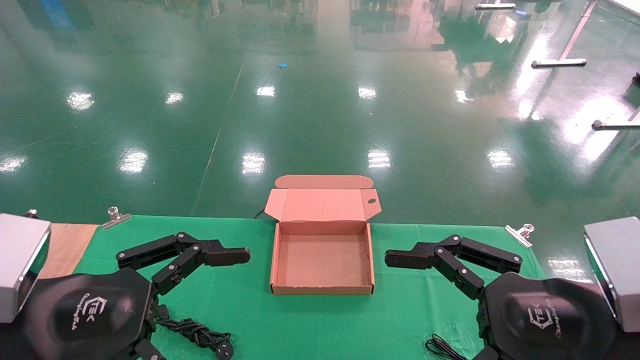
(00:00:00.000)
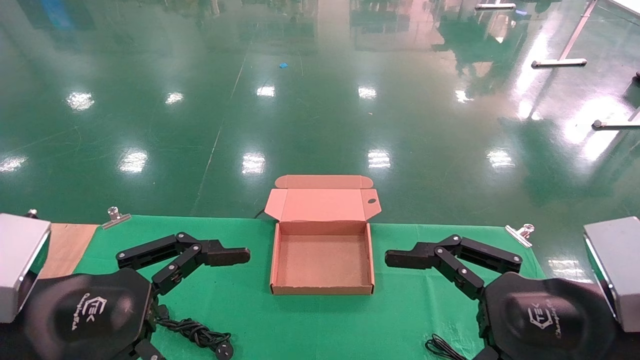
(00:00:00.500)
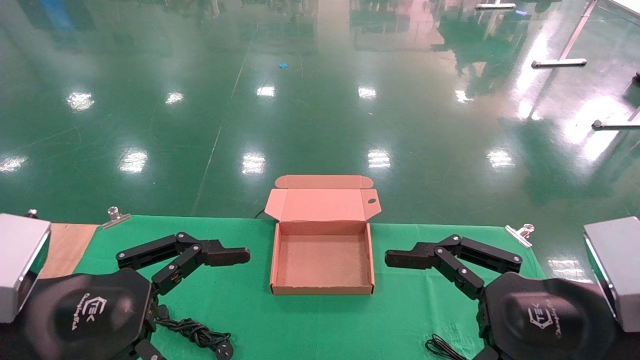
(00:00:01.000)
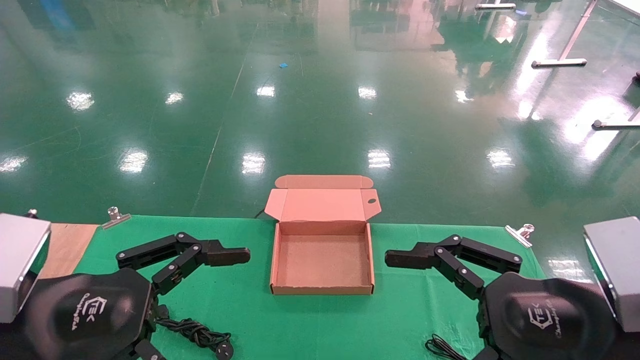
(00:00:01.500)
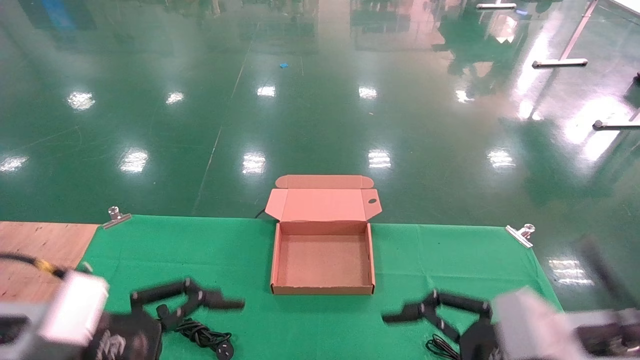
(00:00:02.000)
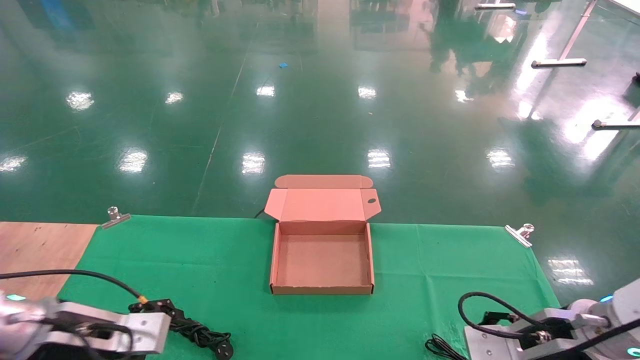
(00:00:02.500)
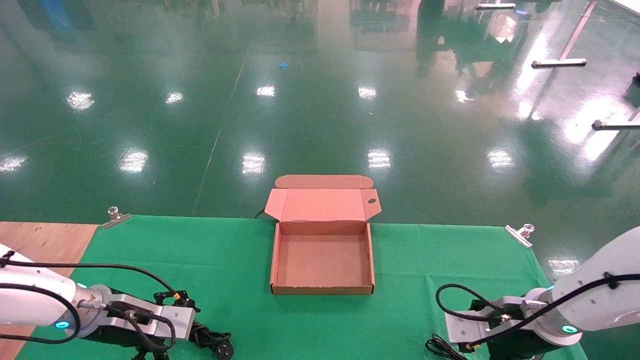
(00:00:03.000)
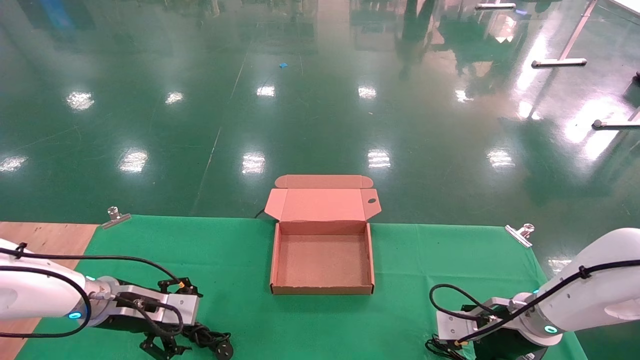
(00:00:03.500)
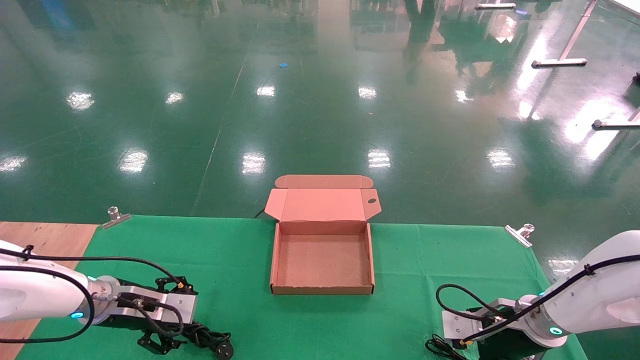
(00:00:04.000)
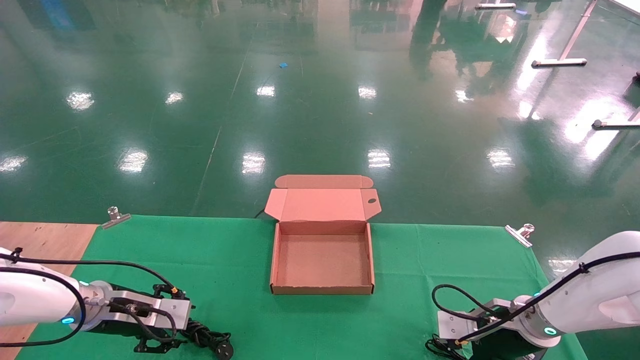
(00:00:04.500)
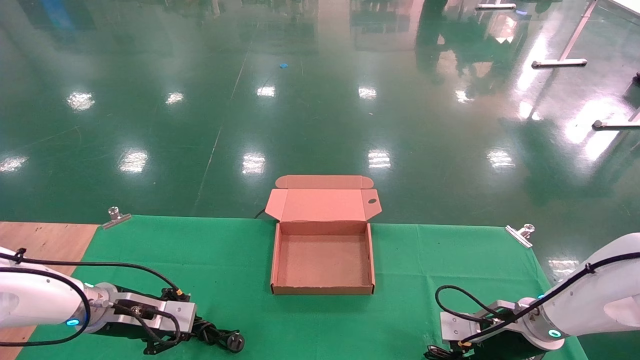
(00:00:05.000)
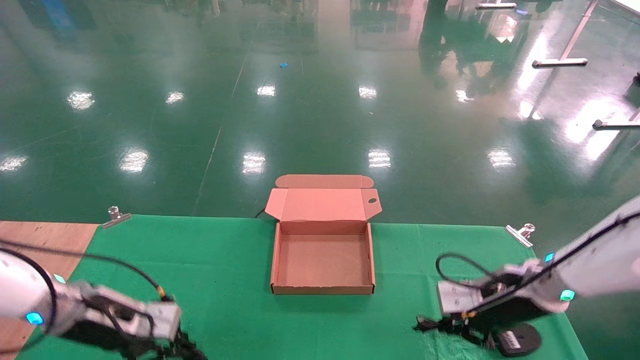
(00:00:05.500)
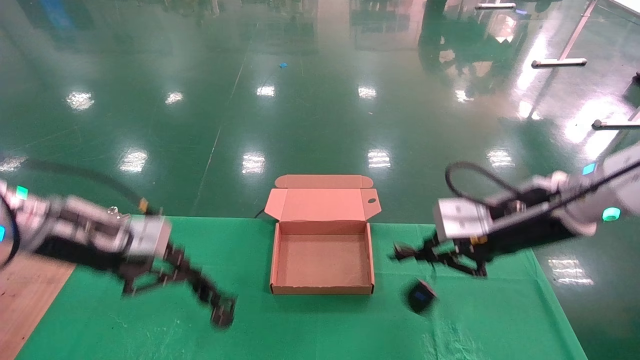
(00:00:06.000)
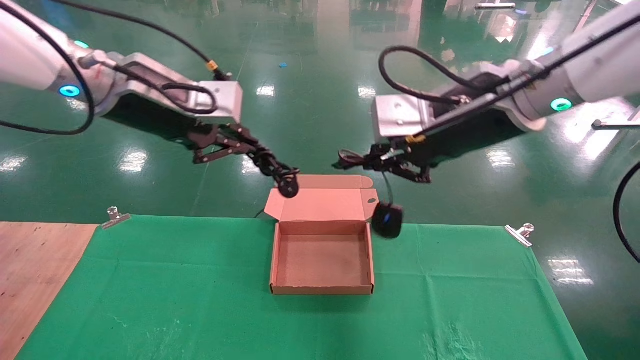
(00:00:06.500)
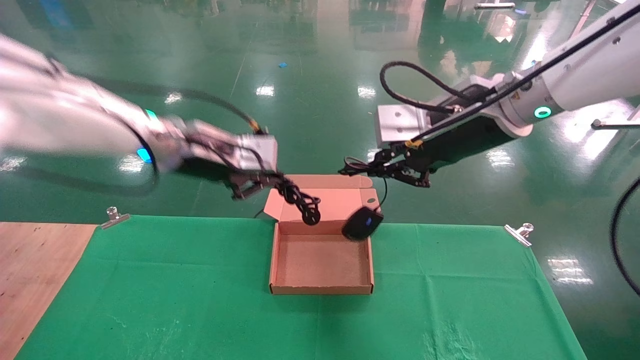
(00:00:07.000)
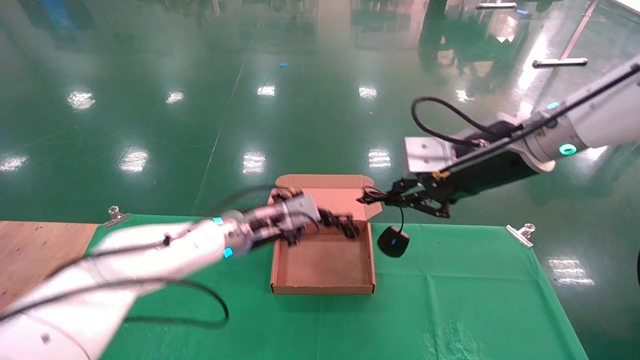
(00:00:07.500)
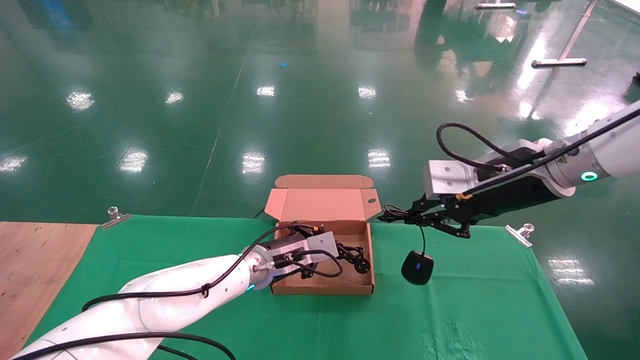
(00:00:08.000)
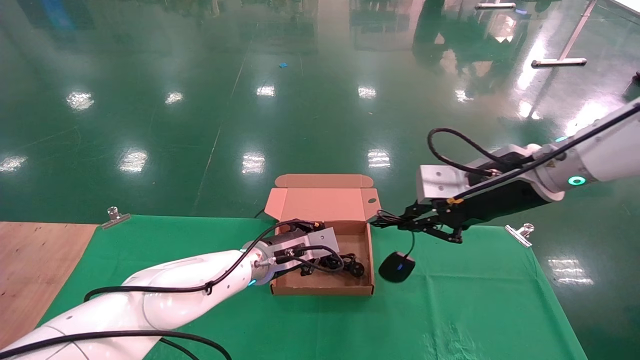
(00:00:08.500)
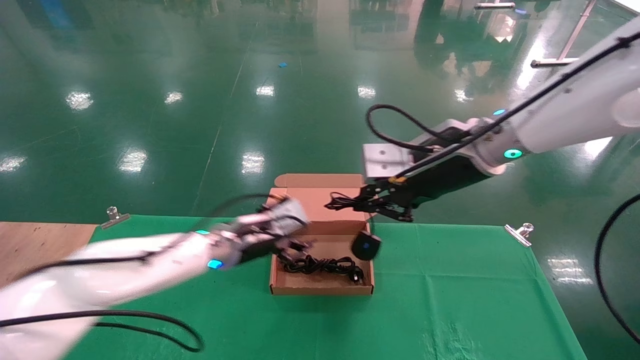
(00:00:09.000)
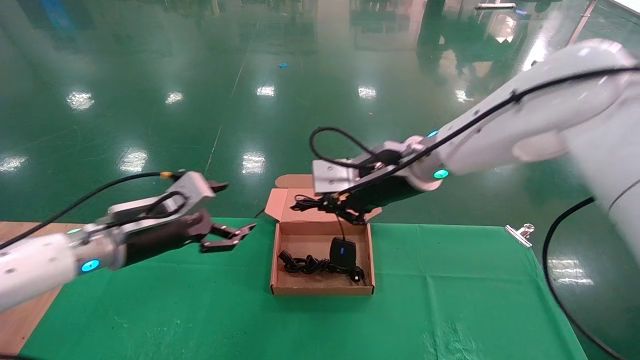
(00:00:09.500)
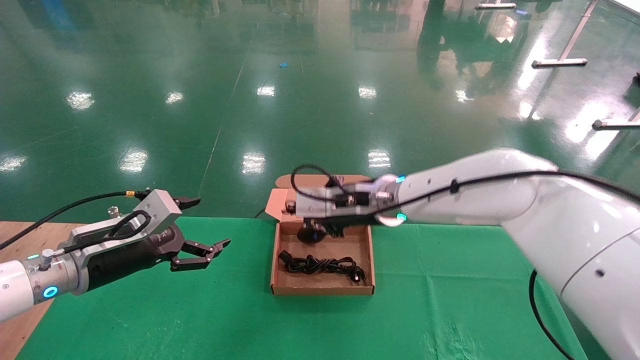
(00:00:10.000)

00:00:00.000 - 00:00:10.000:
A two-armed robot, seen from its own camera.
Step, 00:00:03.000 - 00:00:05.500: Grab and lift both the mouse and power cord from the accessory packaging area at the same time.
00:00:00.000 - 00:00:02.000: The right gripper shifts by about 5 cm. The left gripper ends up roughly 5 cm from where it was.
00:00:02.000 - 00:00:04.000: Both grippers travel together forward and downward, roughly 20 cm.
00:00:04.000 - 00:00:06.000: Both grippers travel together upward, some 20 cm. The left gripper closes up; the right gripper closes up.
00:00:06.000 - 00:00:08.000: The right gripper travels upward and back again, some 10 cm each way; the left gripper moves to the right, downward and forward, some 30 cm.
00:00:08.000 - 00:00:10.000: The left gripper is displaced to the left and backward by some 25 cm, and opens up, while the right gripper goes about 20 cm to the left, forward and downward.

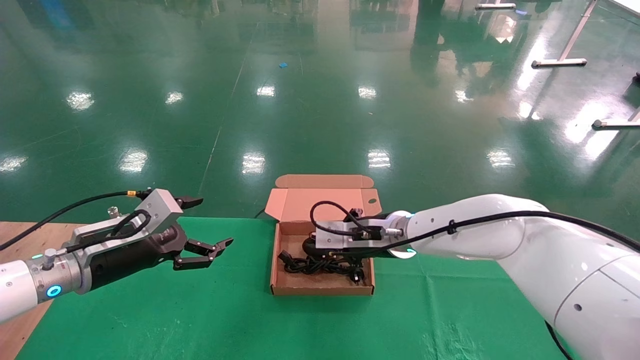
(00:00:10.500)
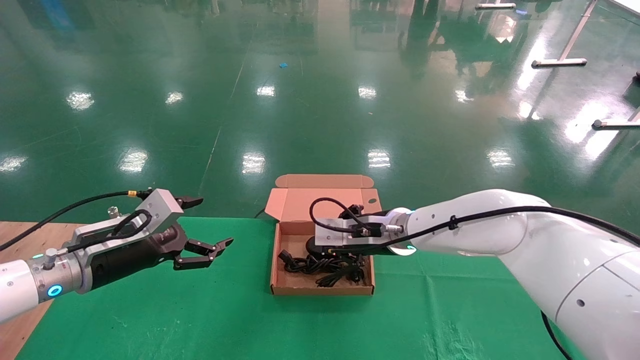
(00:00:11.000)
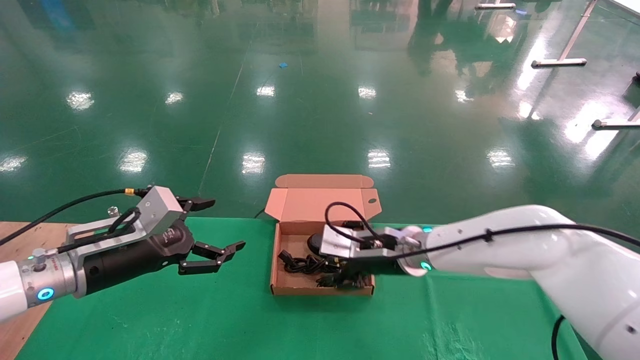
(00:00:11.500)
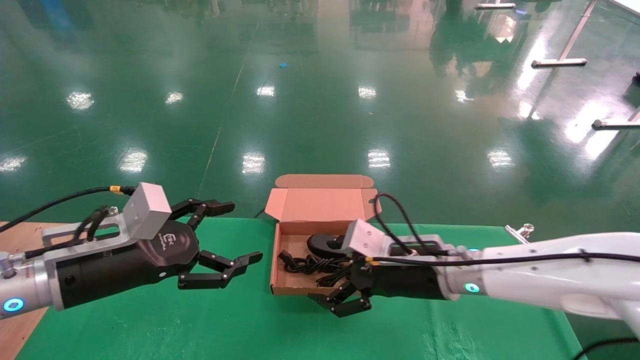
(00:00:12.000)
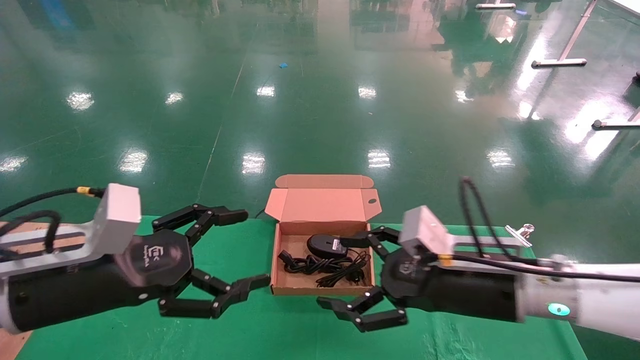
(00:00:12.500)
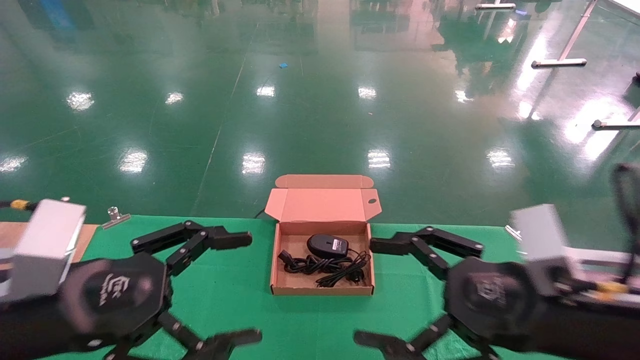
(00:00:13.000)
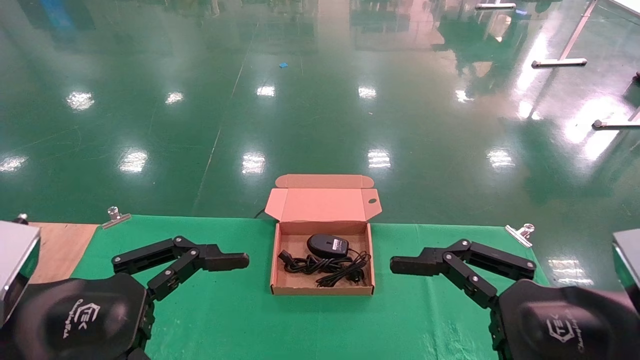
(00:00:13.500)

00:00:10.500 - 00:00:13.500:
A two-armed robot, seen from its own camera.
00:00:10.500 - 00:00:12.000: The left gripper heads backward, covering about 5 cm, while the right gripper shifts approximately 10 cm backward and to the right, and opens up.
00:00:12.000 - 00:00:13.500: The left gripper shifts approximately 15 cm backward, while the right gripper goes approximately 25 cm backward and to the right.

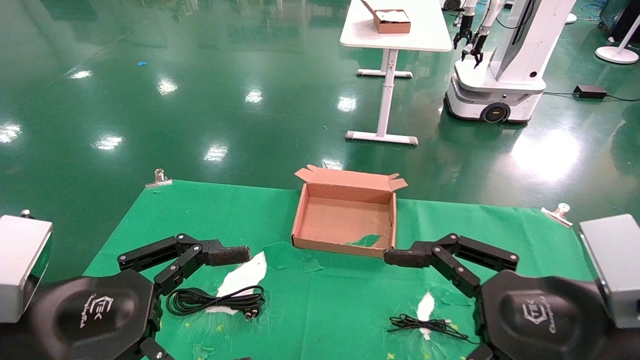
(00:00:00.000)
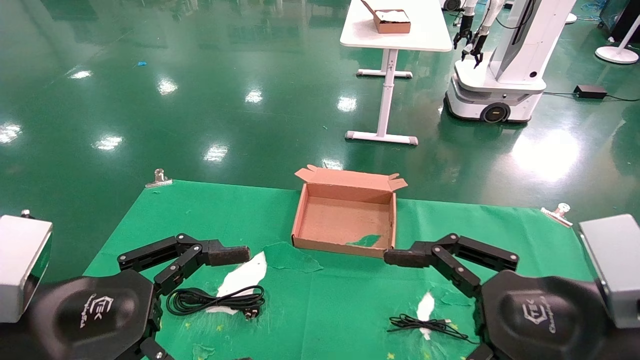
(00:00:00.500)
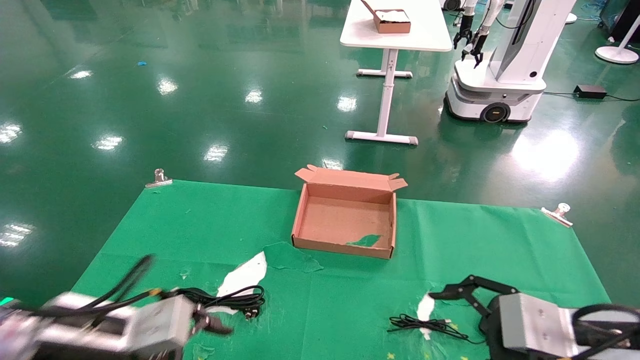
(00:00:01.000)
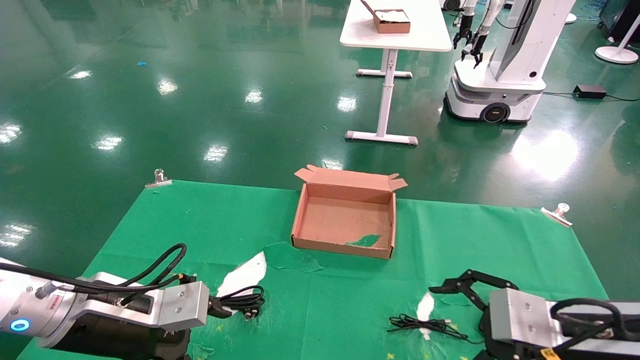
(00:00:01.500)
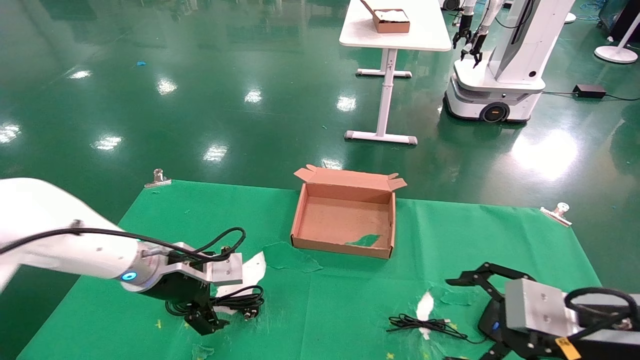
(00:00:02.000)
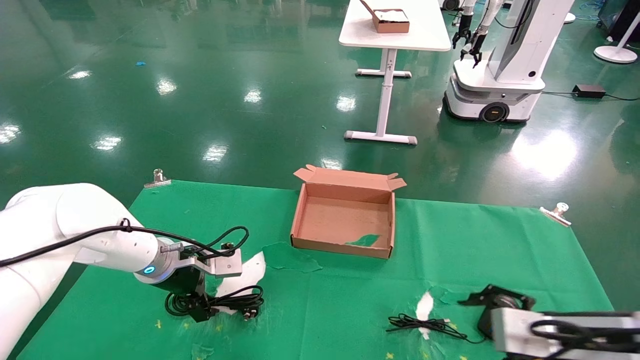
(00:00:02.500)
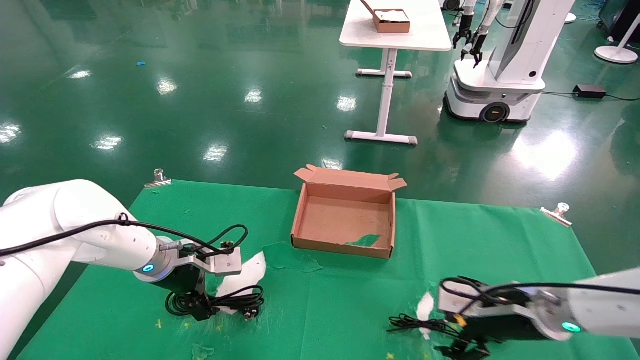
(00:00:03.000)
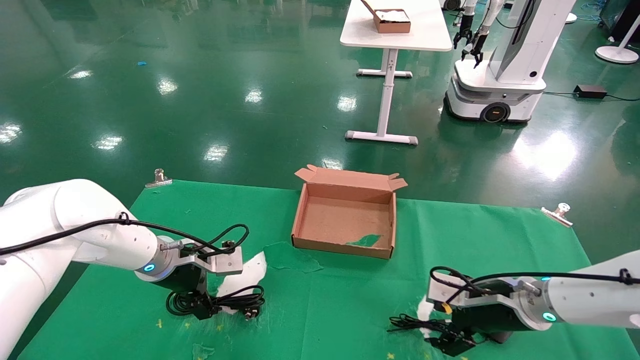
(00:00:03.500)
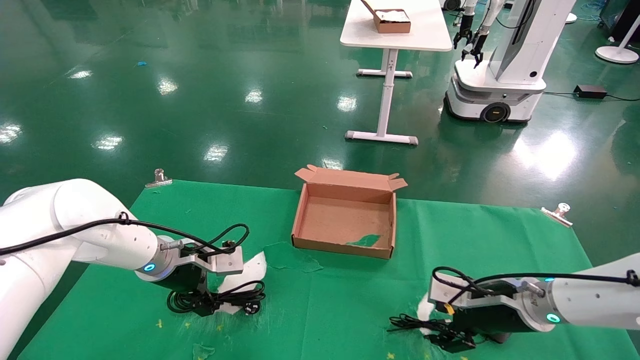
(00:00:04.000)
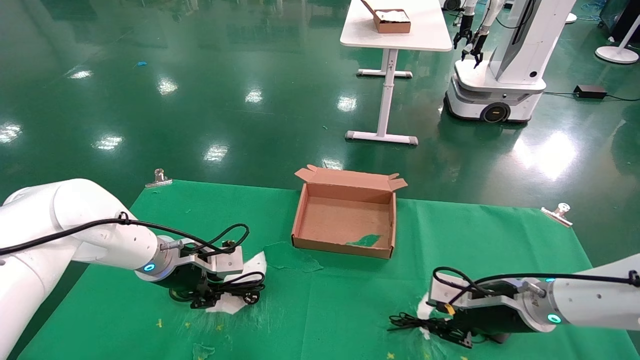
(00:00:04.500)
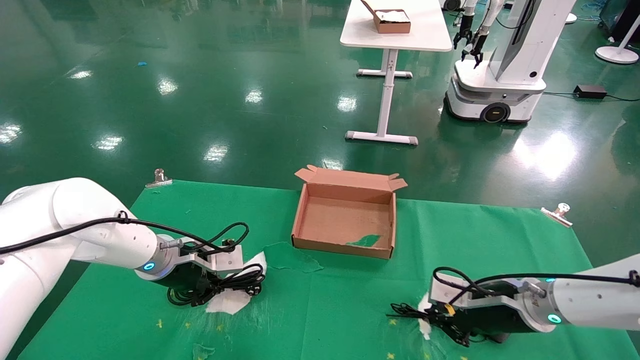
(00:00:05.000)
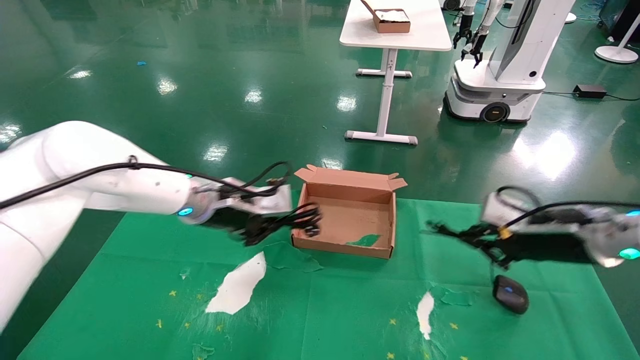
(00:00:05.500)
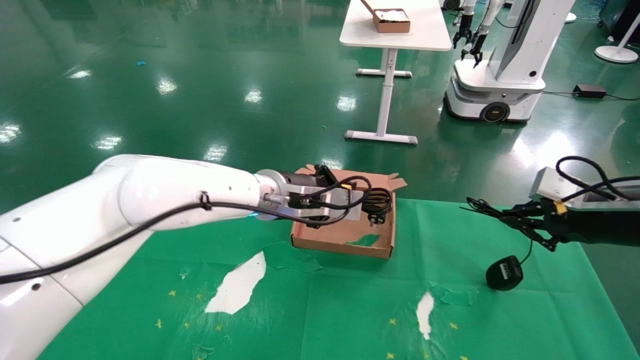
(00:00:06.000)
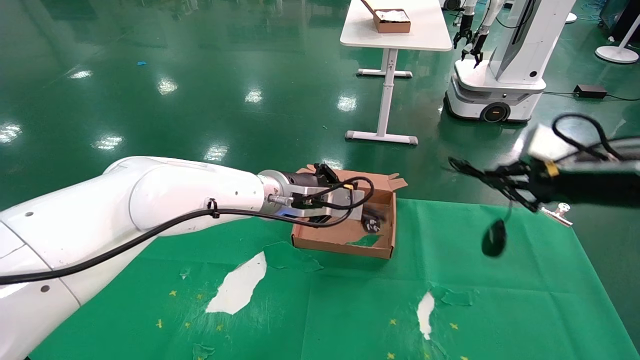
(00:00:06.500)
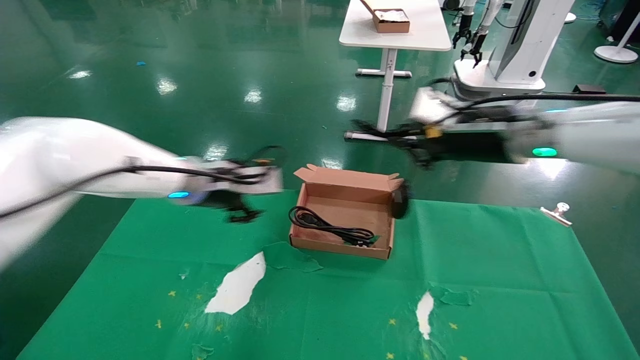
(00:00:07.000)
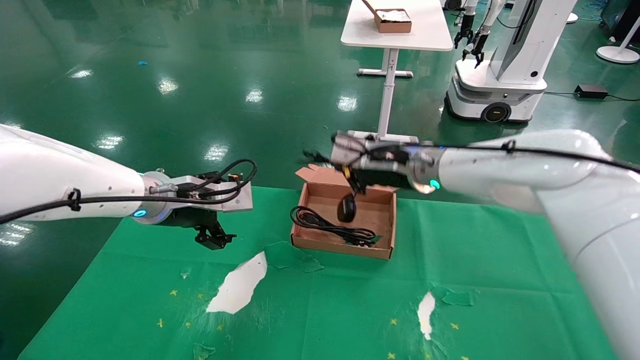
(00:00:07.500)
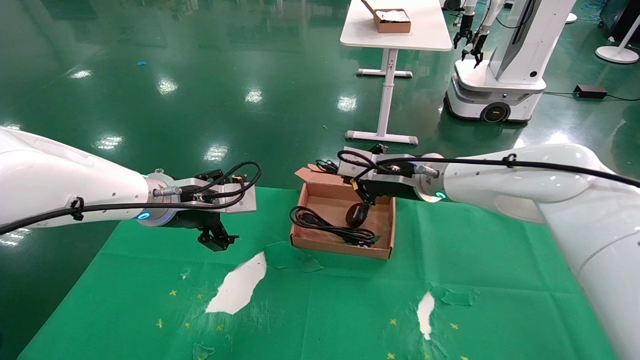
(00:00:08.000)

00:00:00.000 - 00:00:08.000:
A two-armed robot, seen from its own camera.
Step, 00:00:01.000 - 00:00:04.500: Grab and lift both the mouse and power cord from the accessory packaging area at the same time.
00:00:00.000 - 00:00:02.000: The right gripper is displaced forward and to the right by approximately 10 cm, while the left gripper travels forward by about 25 cm.
00:00:02.000 - 00:00:04.000: The right gripper goes roughly 15 cm forward and downward.
00:00:04.000 - 00:00:06.000: The right gripper heads upward and to the right, covering approximately 20 cm, and closes up, while the left gripper heads to the right and upward, covering approximately 20 cm, and closes its fingers.
00:00:06.000 - 00:00:08.000: The right gripper goes roughly 30 cm to the left and forward, while the left gripper travels to the left by about 15 cm, and opens its fingers.
